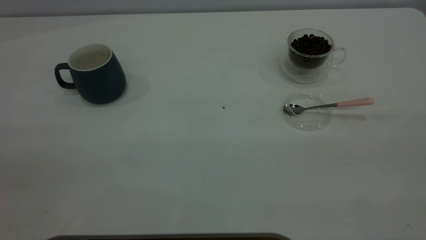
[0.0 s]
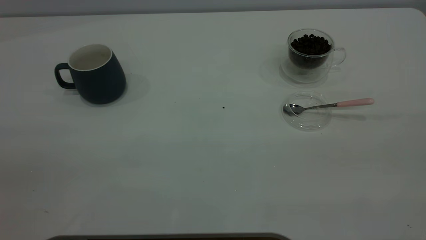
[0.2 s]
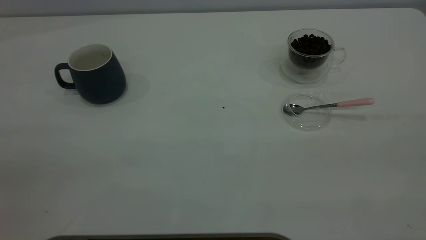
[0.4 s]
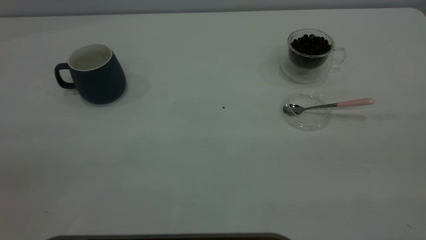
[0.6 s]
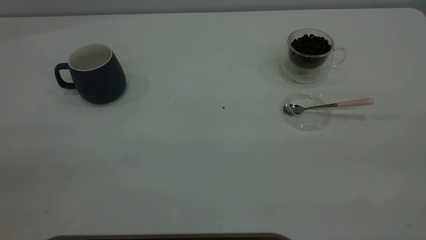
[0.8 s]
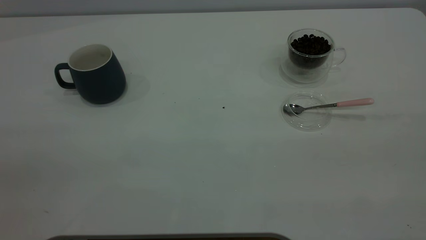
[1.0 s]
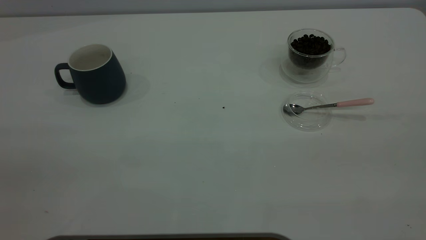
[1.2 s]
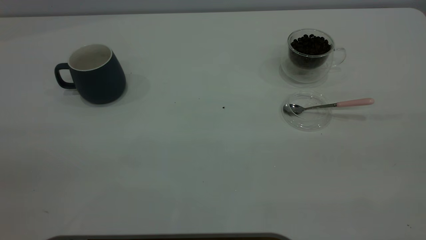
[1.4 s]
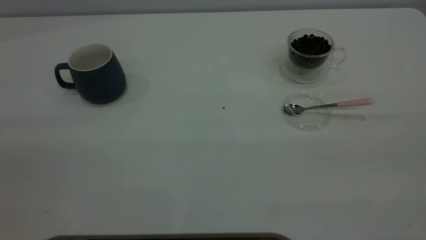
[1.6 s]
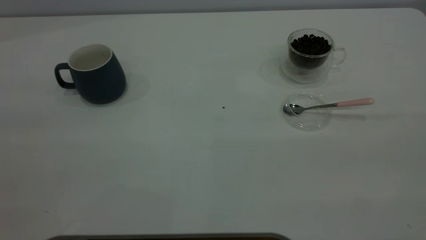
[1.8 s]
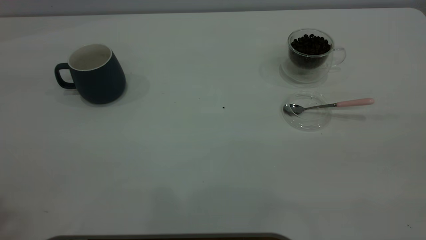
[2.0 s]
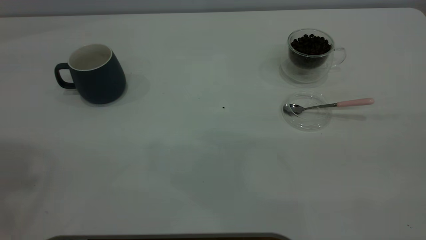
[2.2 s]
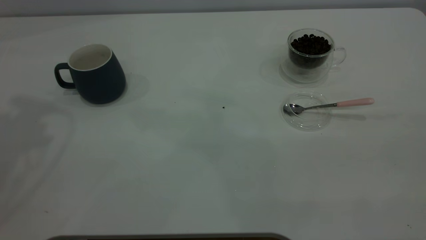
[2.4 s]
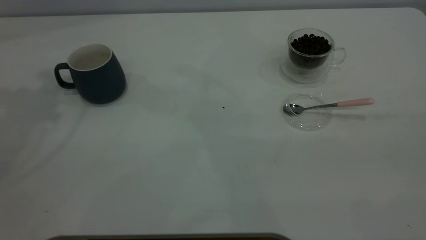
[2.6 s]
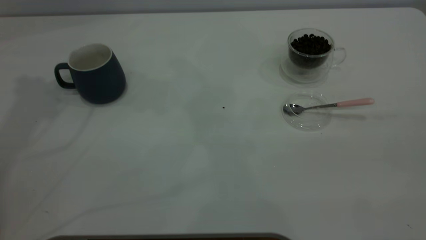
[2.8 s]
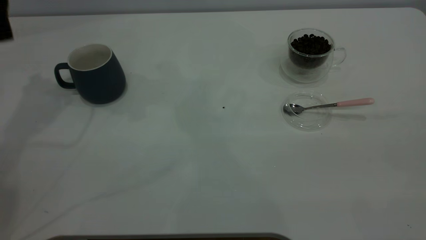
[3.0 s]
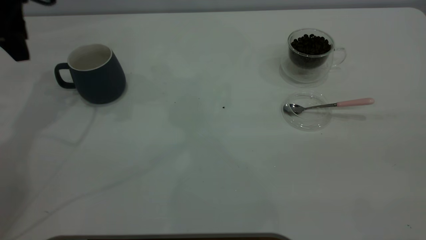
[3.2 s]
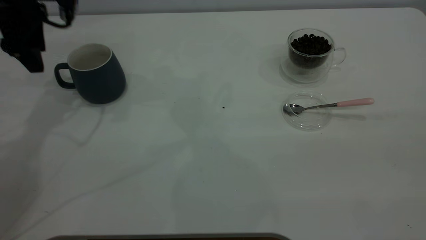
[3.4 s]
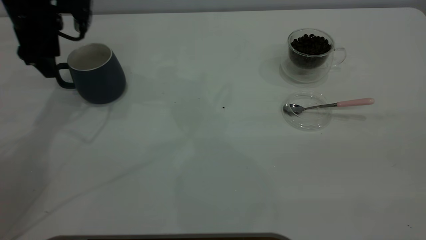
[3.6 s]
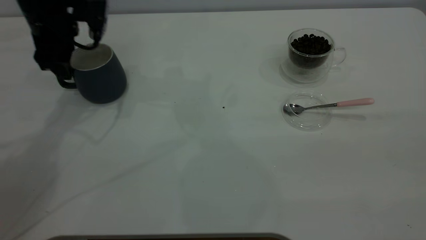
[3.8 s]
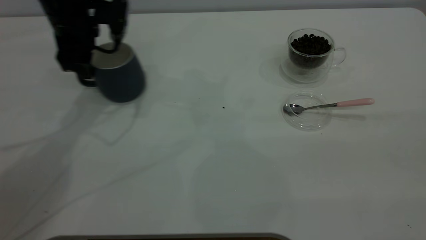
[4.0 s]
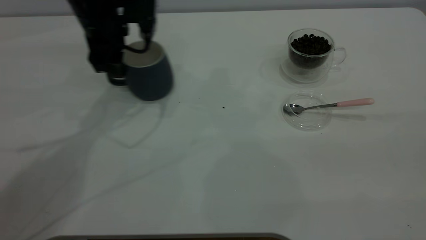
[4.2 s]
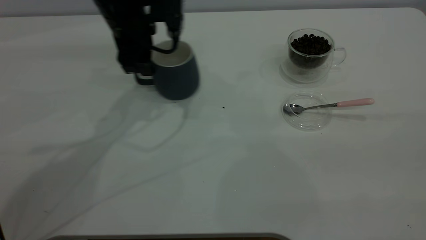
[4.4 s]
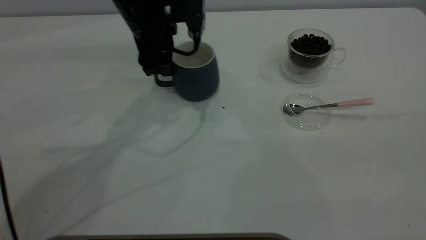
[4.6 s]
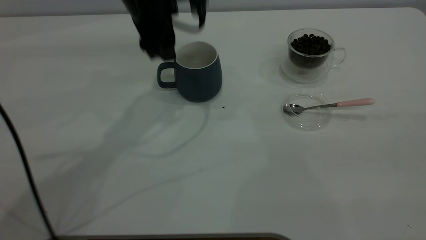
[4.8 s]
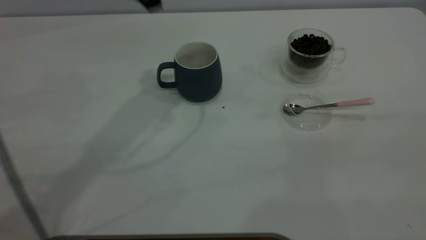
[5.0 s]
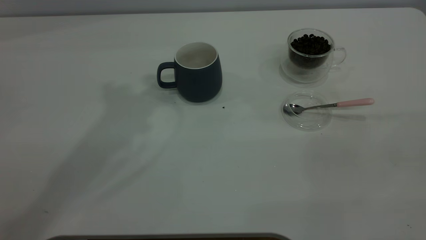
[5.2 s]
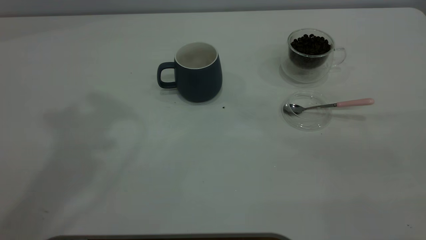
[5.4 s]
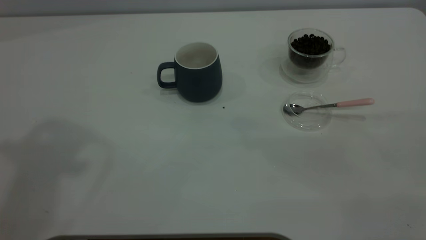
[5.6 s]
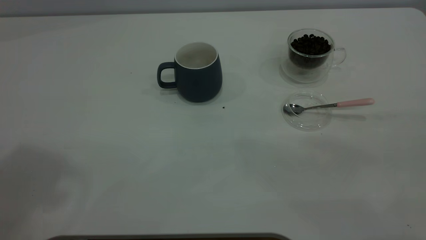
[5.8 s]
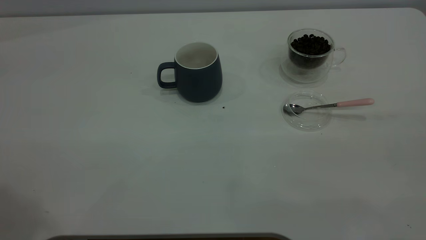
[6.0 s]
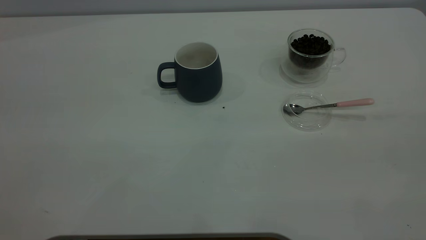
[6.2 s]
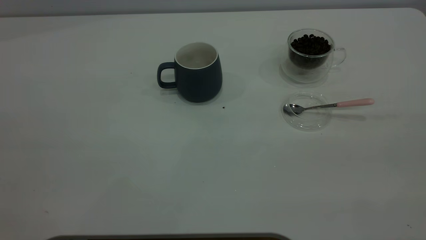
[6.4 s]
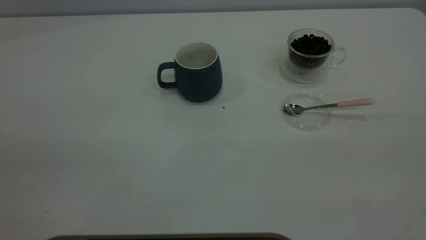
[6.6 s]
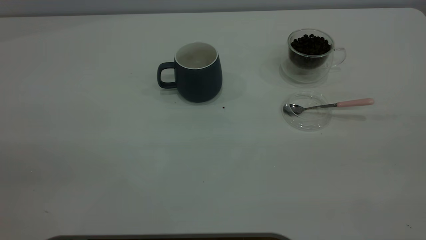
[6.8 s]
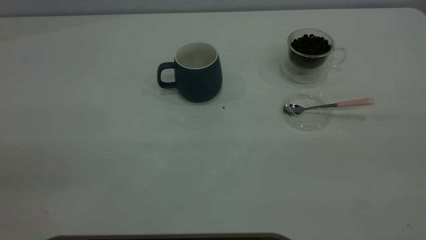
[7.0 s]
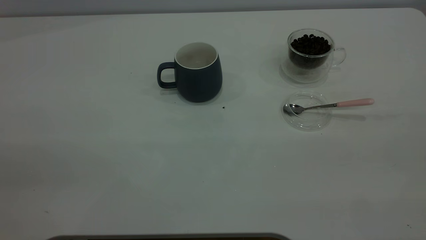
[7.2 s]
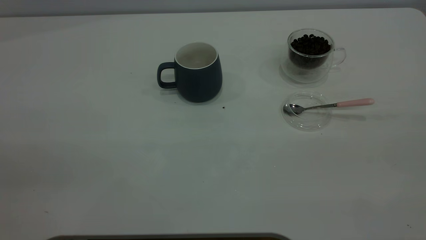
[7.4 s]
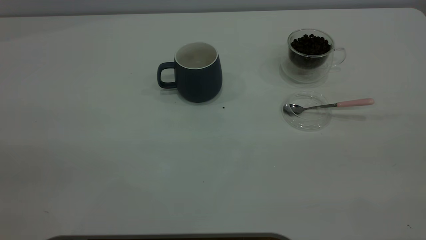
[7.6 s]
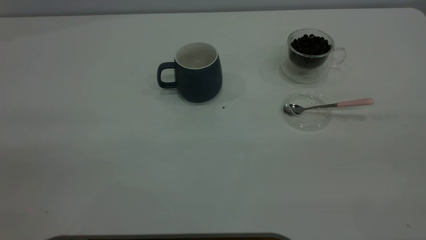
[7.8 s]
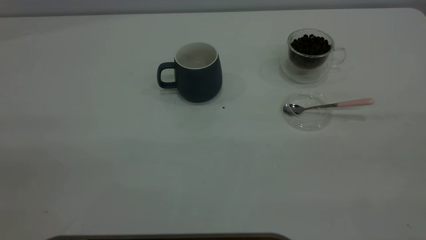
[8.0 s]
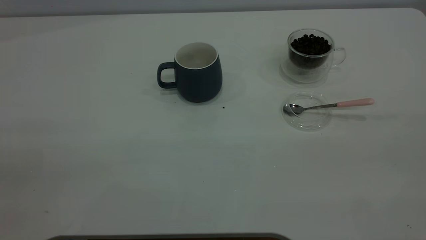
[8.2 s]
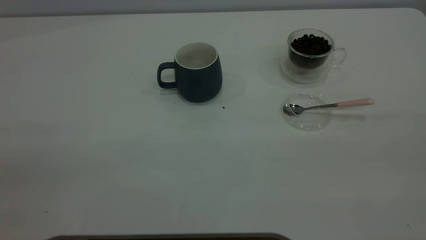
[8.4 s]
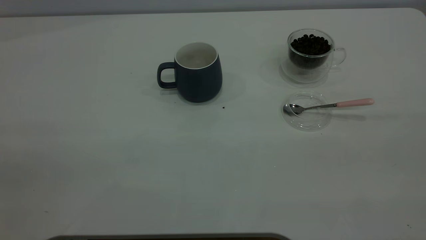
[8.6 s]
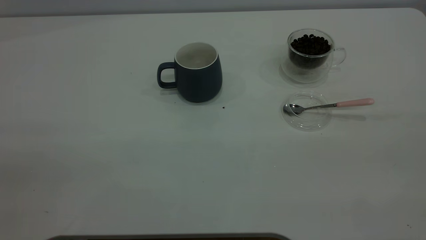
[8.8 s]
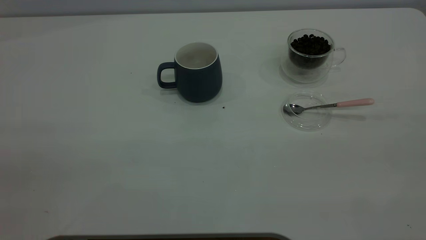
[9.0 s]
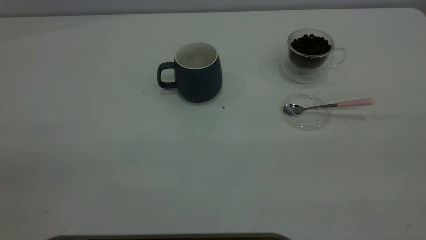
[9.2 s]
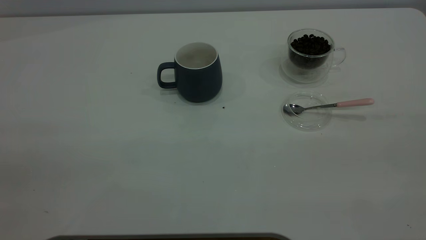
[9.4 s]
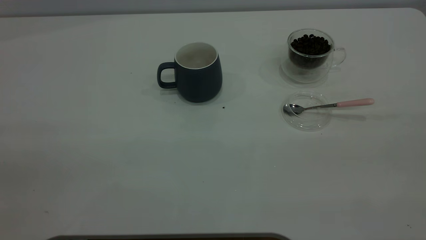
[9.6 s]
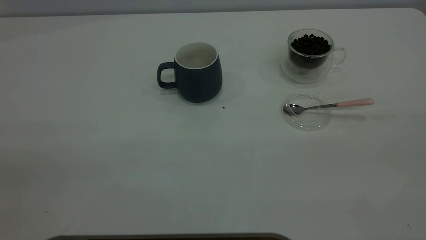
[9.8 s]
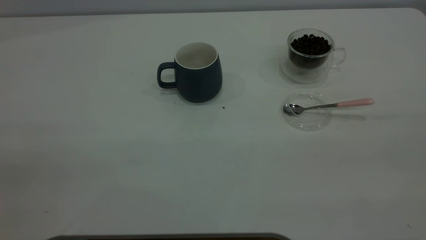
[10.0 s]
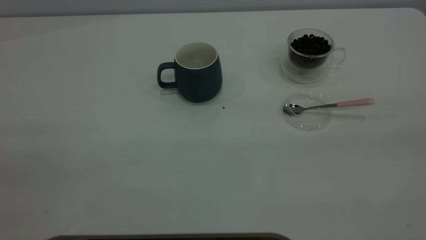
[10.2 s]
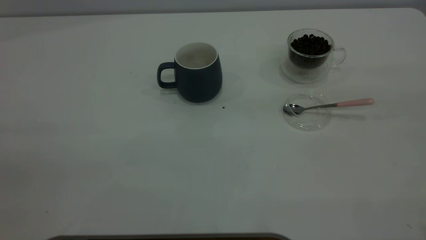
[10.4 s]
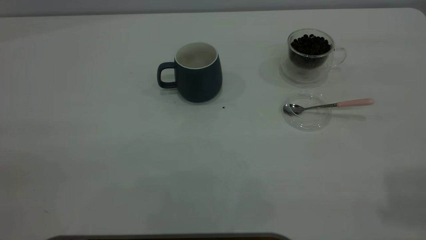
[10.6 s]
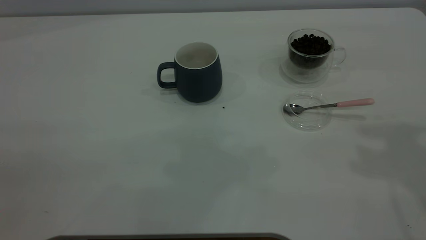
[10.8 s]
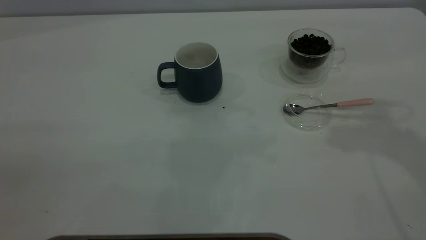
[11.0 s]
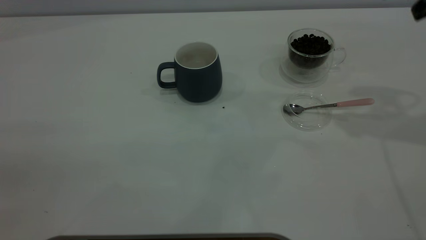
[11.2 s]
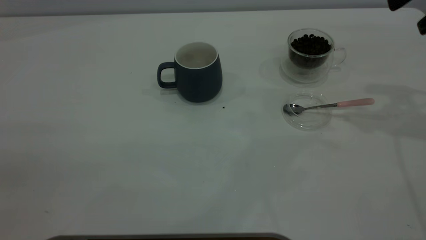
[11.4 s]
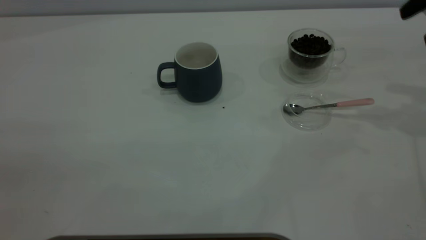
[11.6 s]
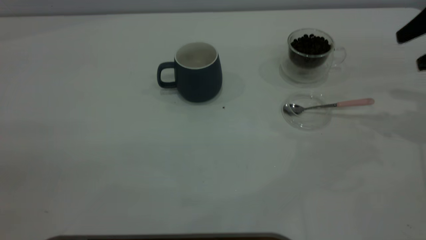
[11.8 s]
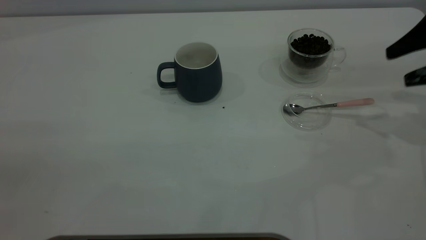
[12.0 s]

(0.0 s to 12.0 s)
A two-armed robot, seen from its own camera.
Task of the whole recording: the left gripper place the grey cup in the center of the table, the right gripper take the pink spoon from the cup lid and scoop out the coffee beans from the coffee cup and put them into the grey cup, the right gripper put the spoon back into the cup lid.
Step, 0.0 s - 4.8 s: Move the cup to the center of view.
3.0 s - 4.4 s: The left gripper travels to the right and downward by roughly 20 cm.
4.4 s - 6.0 s: The left gripper moves upward and backward, some 50 cm.
10.4 s - 12.0 s: The right gripper heads downward and forward, covering roughly 35 cm.

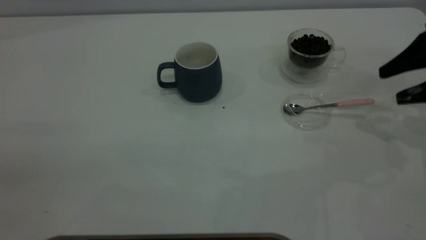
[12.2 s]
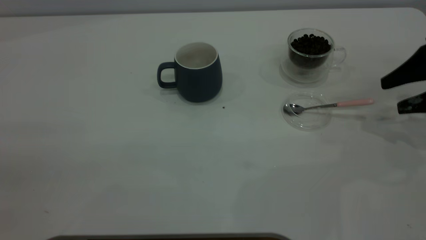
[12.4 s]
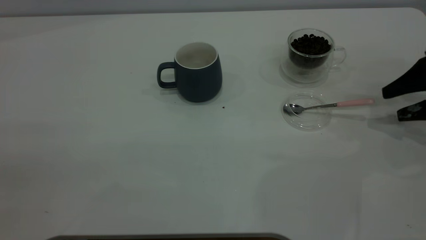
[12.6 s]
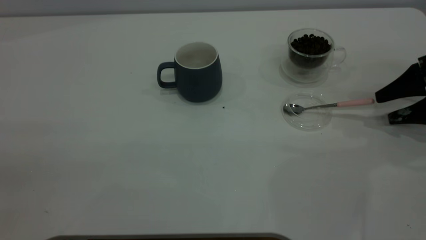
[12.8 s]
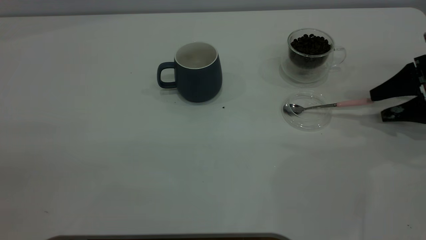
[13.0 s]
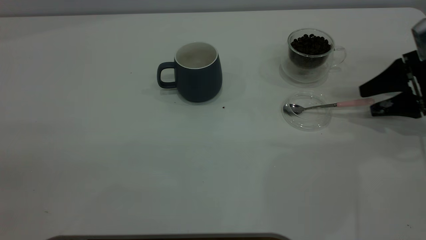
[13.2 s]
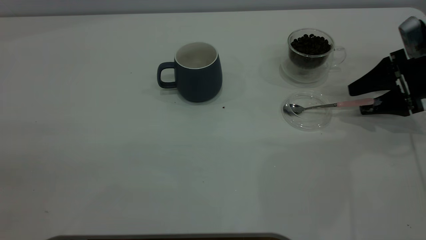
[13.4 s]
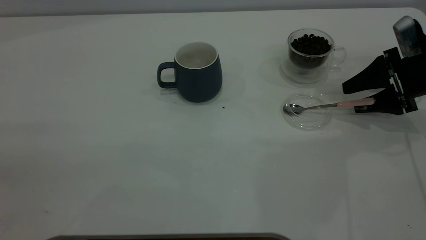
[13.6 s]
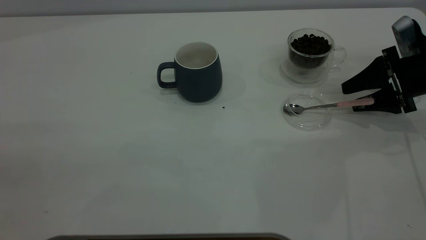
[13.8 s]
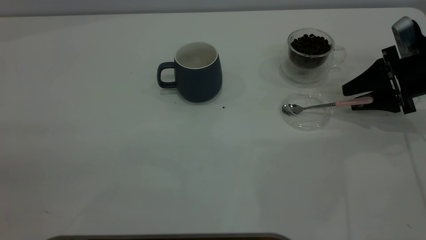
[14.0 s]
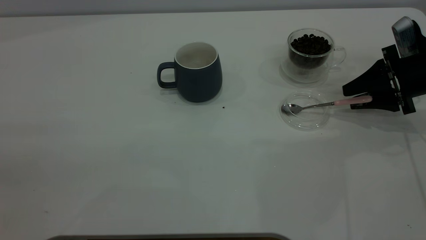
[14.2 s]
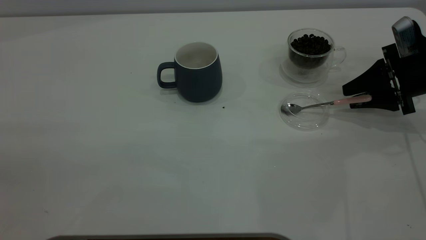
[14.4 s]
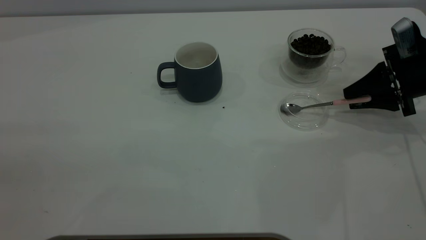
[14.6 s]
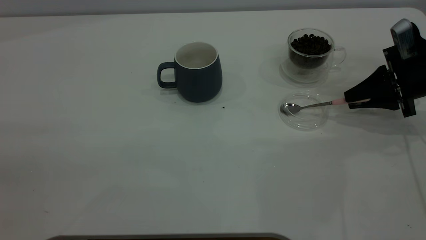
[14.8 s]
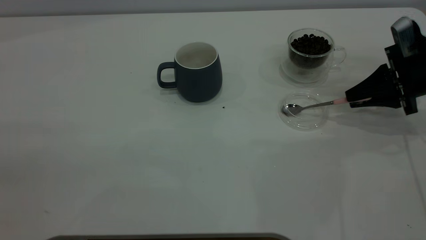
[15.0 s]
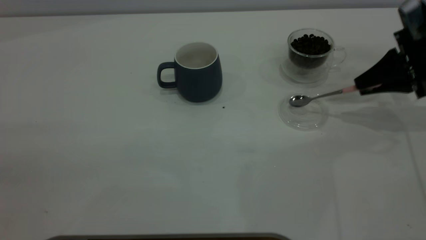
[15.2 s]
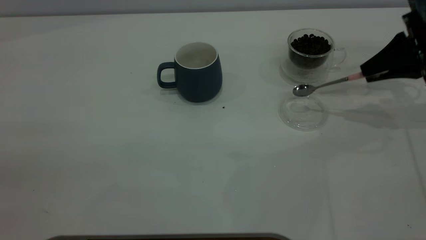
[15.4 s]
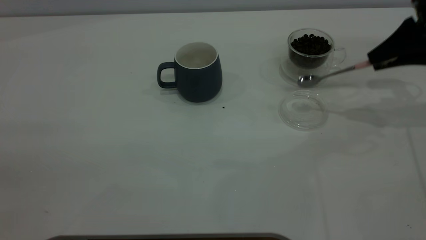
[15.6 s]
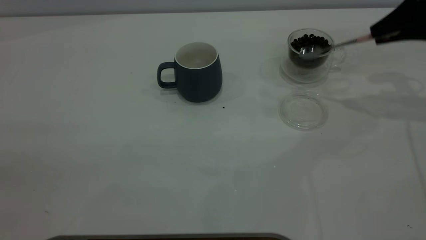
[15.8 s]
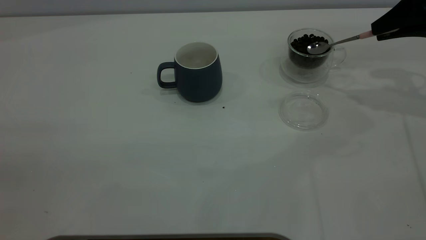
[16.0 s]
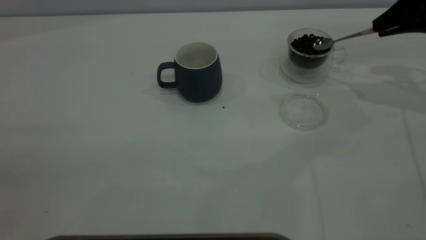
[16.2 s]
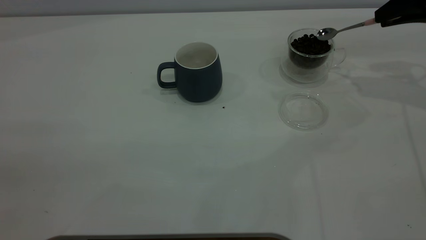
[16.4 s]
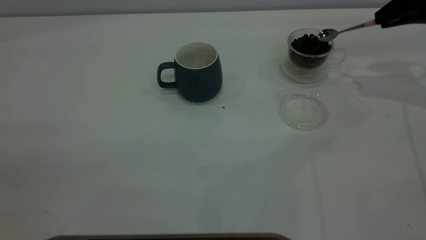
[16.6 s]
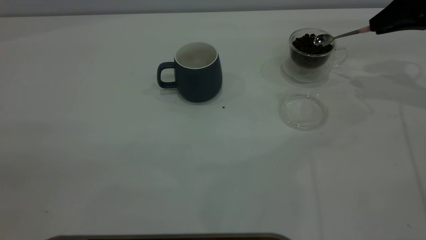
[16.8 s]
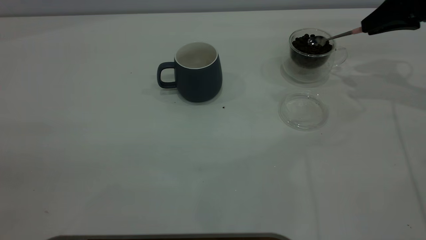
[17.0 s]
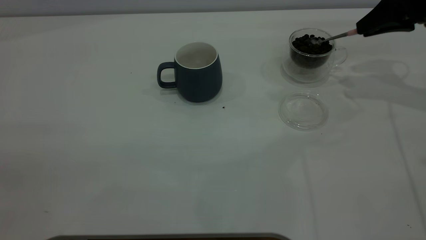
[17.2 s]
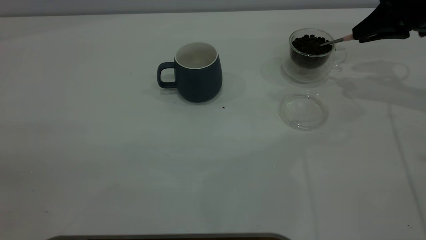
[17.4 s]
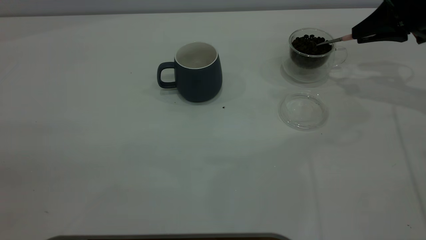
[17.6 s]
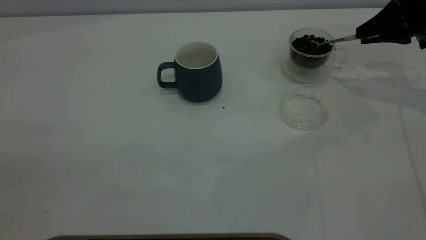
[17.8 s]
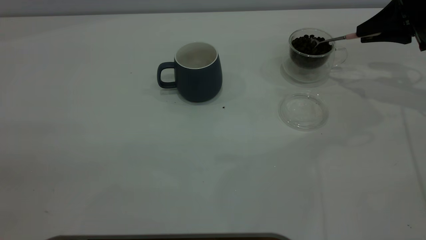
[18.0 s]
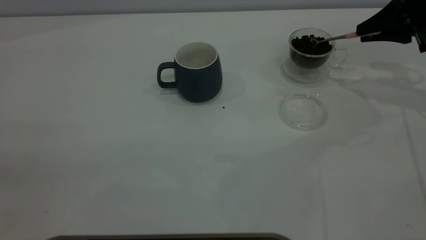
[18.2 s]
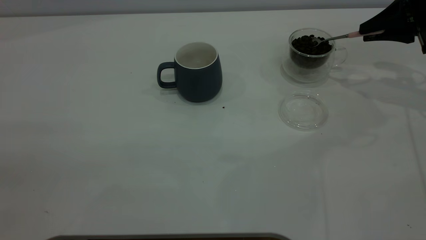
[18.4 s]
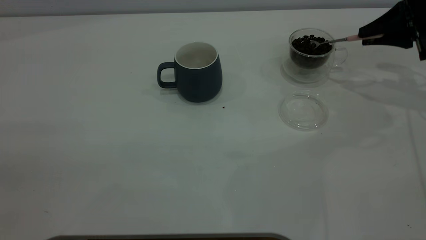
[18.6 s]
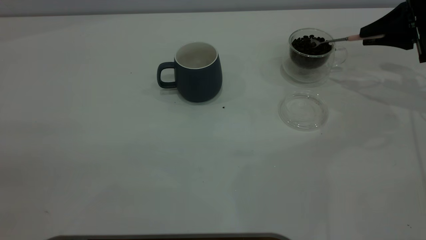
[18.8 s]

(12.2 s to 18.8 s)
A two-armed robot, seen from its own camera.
Task of the whole recording: the left gripper place the grey cup in the center of the table, the right gripper take the pink spoon from the cup lid and scoop out the coffee beans from the coffee cup and put them into the grey cup, the right gripper put the spoon back into the cup lid.
Step, 12.2 s - 15.2 s: Pick up the spoon.
12.2 s - 13.8 s: The right gripper travels downward by roughly 5 cm.
13.8 s - 15.4 s: The right gripper goes roughly 5 cm upward, and closes up.
15.4 s - 17.2 s: The right gripper moves roughly 5 cm.
